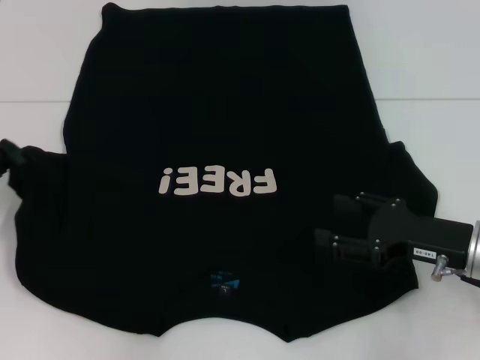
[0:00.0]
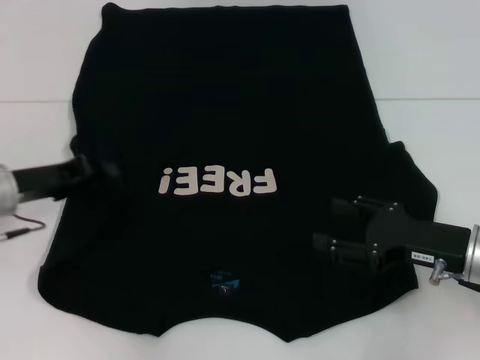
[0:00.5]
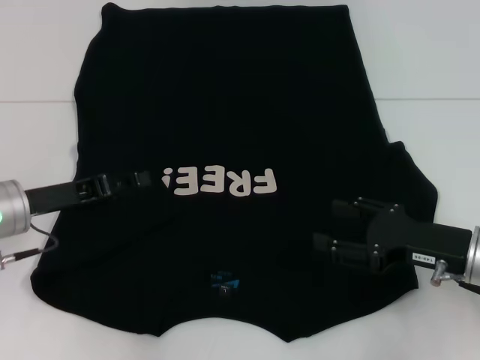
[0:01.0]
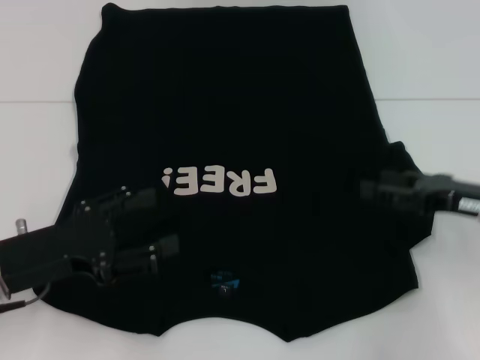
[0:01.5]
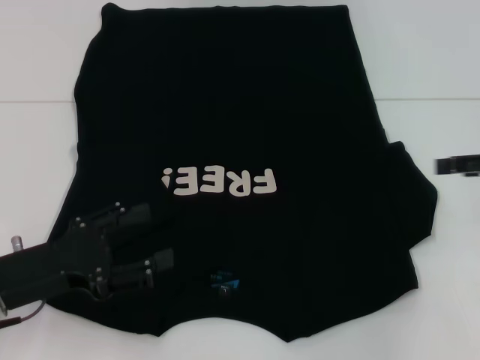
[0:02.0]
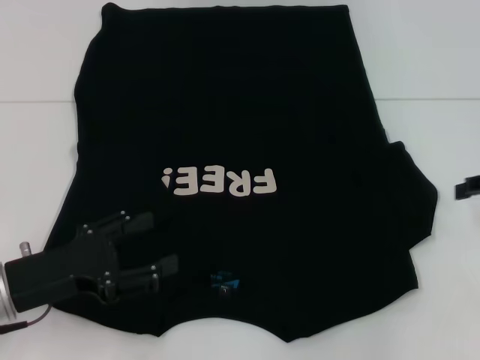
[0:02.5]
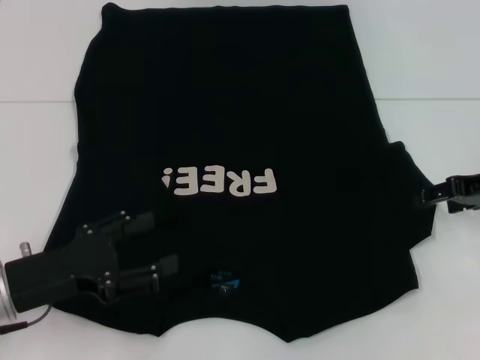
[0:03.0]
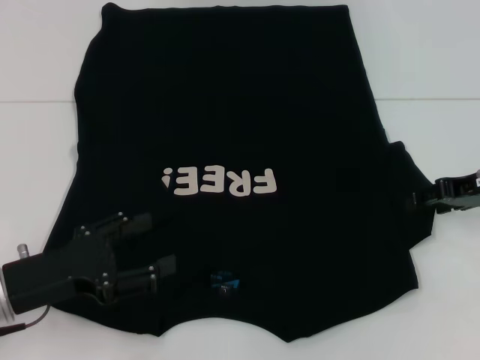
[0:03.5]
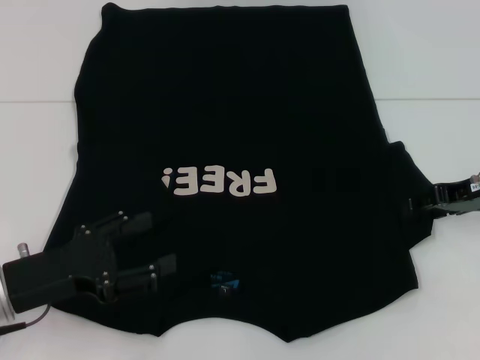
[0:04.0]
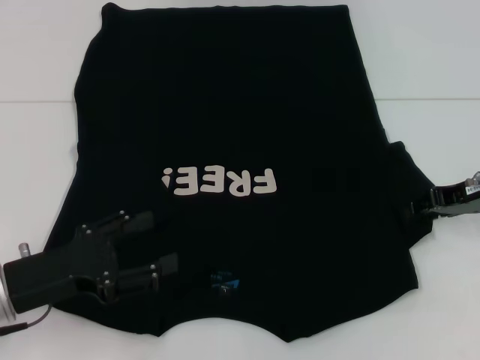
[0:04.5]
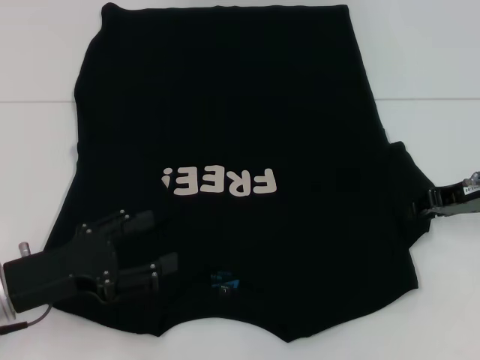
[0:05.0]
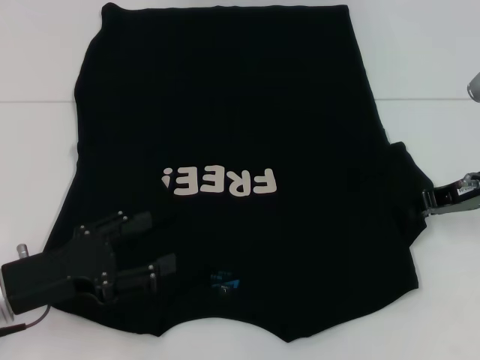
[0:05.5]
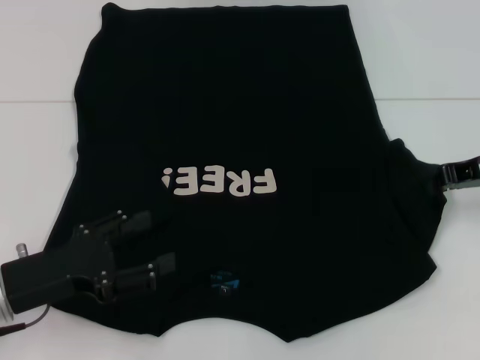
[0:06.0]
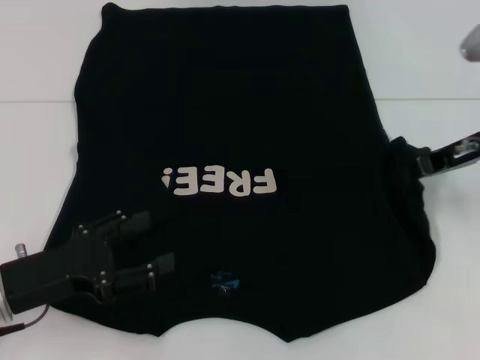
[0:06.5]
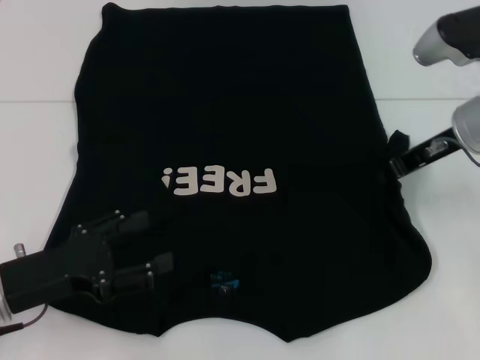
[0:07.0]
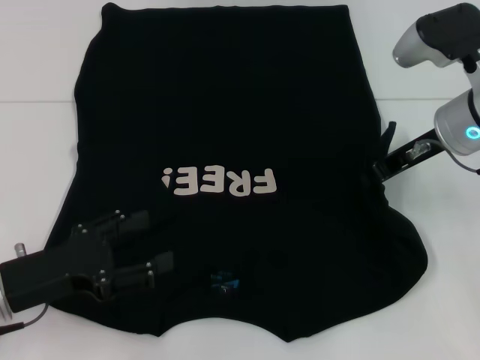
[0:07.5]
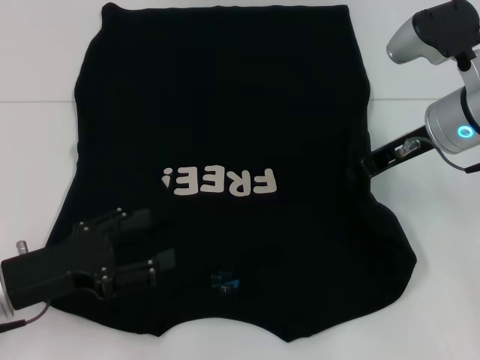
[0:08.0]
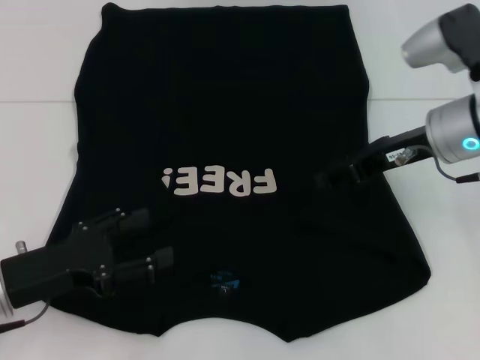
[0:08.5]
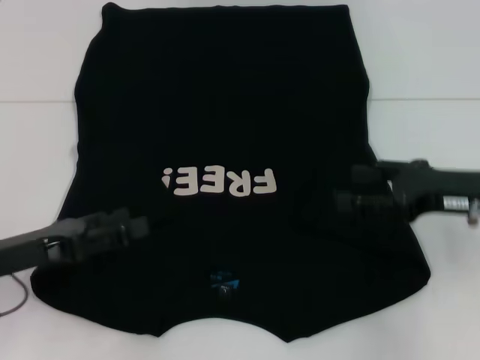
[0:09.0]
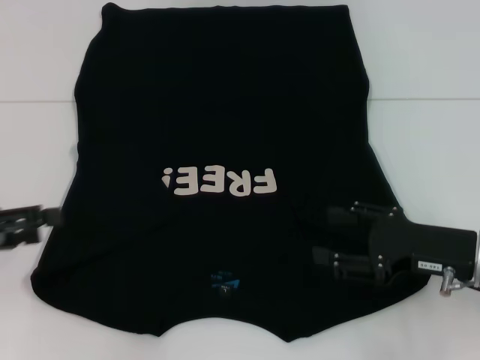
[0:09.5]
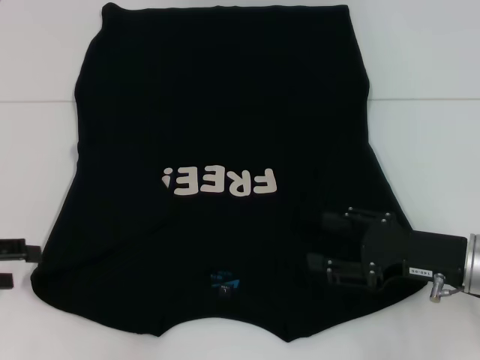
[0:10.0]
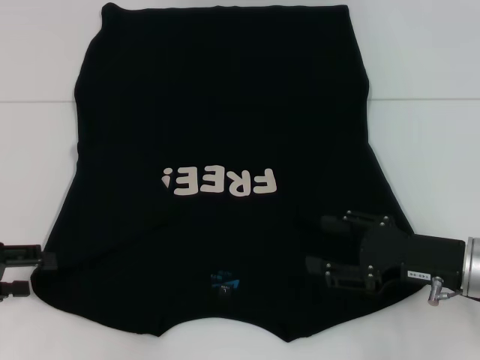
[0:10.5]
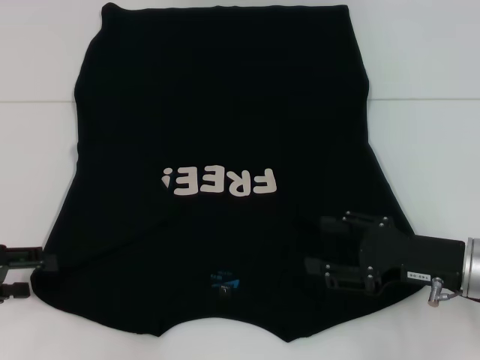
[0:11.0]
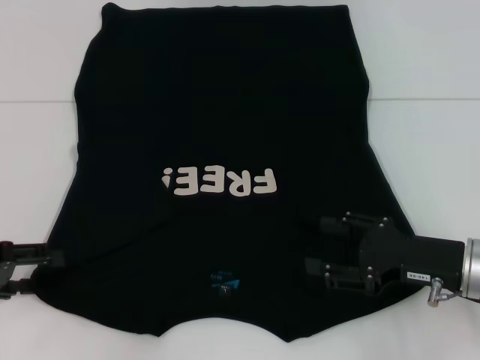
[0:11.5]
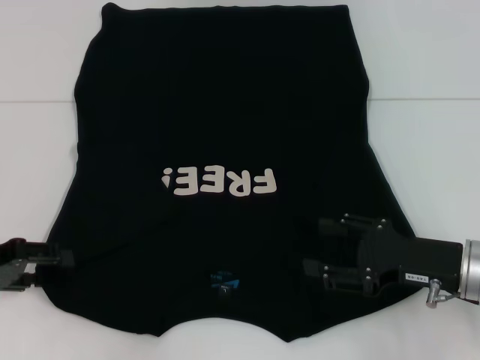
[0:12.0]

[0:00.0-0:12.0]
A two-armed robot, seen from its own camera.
Step, 0:01.5 to 0:08.0: Fold the bottom right sleeve with your right hand.
0:00.0 to 0:02.0: The left gripper shifts about 15 cm to the right and backward, and opens; the right gripper heads upward and to the right, covering roughly 15 cm.
0:02.0 to 0:04.0: The right gripper shifts roughly 5 cm to the left.
0:04.0 to 0:06.0: The right gripper closes.
0:06.0 to 0:08.0: The right gripper is displaced to the left by roughly 10 cm.
0:08.0 to 0:10.0: The left gripper heads to the left, covering approximately 10 cm; the right gripper travels backward and downward by some 15 cm, and opens up.
0:10.0 to 0:12.0: The grippers make only small movements.

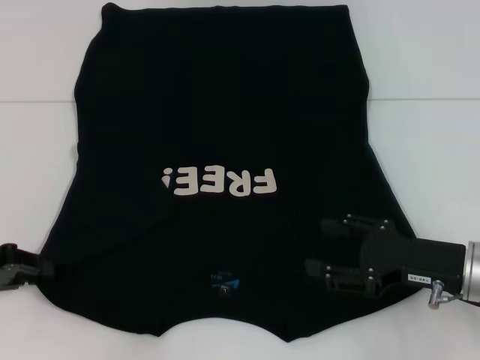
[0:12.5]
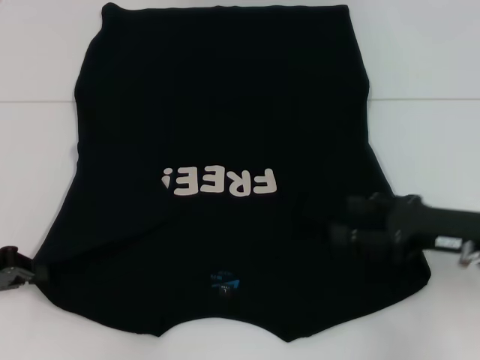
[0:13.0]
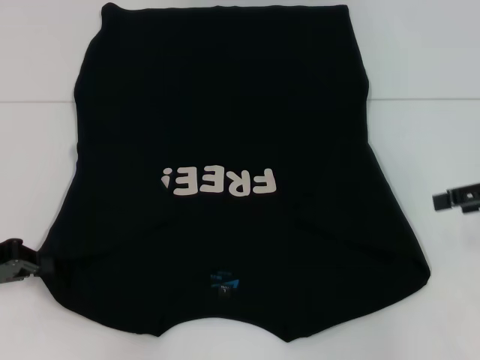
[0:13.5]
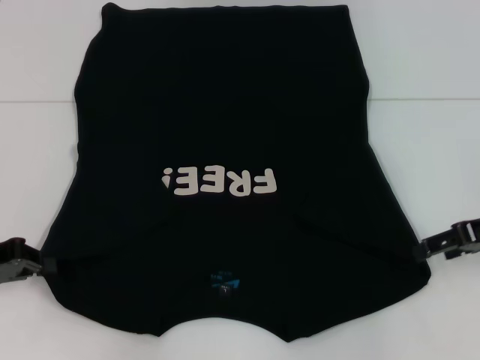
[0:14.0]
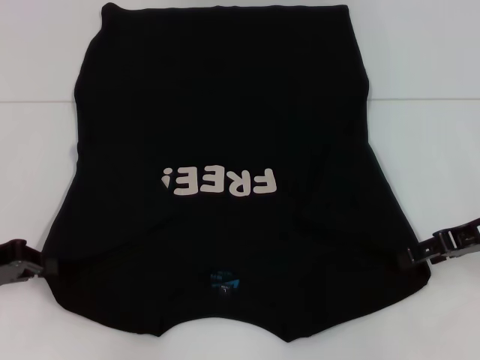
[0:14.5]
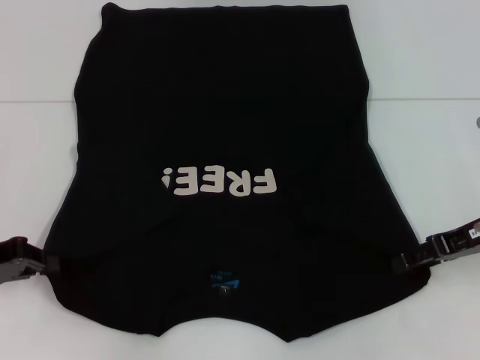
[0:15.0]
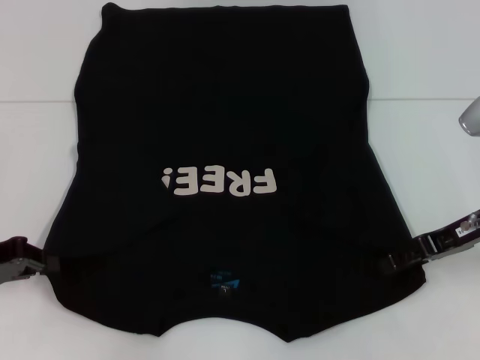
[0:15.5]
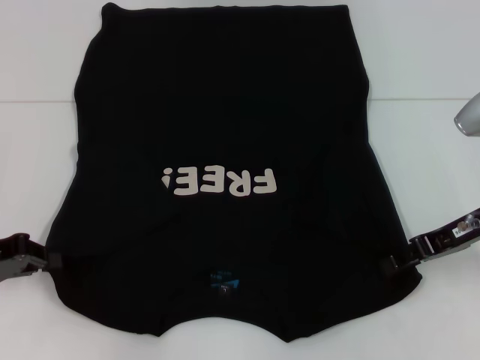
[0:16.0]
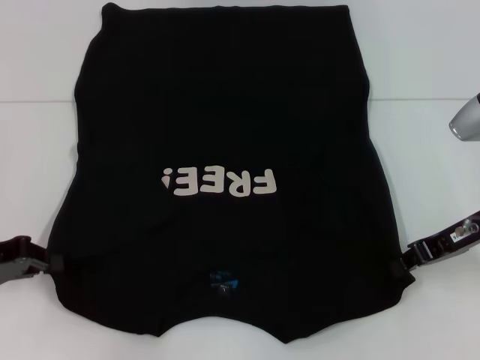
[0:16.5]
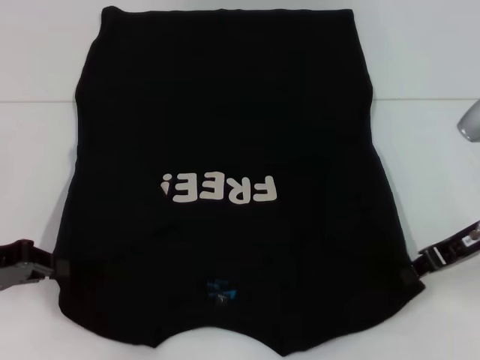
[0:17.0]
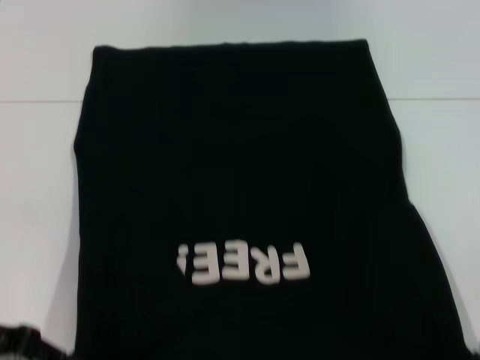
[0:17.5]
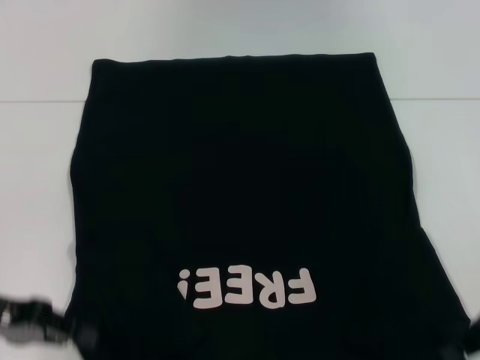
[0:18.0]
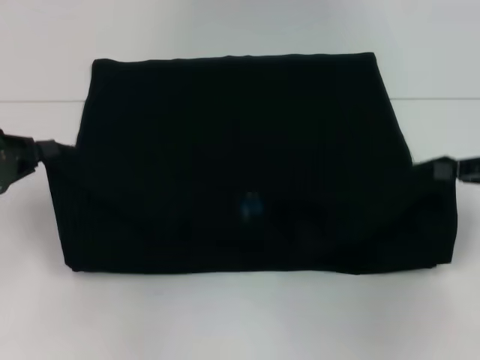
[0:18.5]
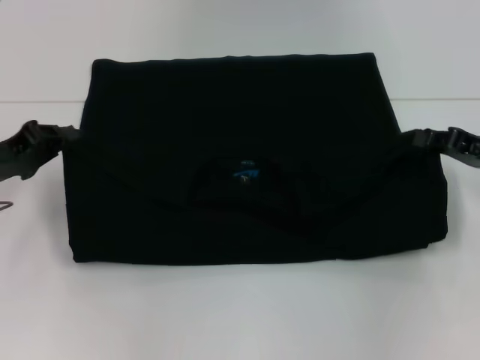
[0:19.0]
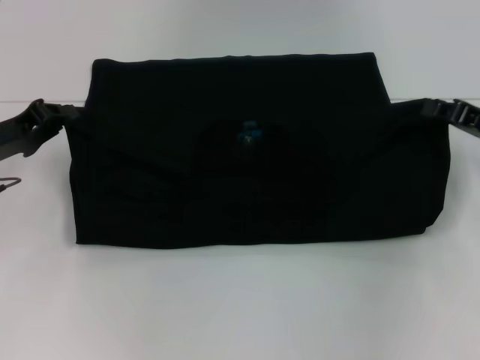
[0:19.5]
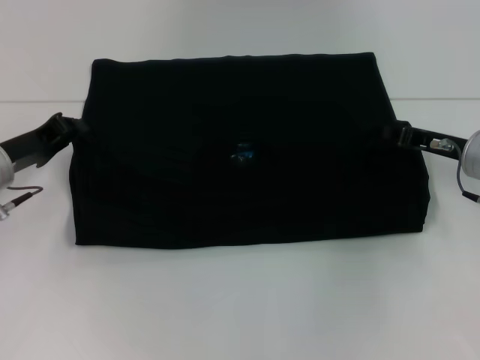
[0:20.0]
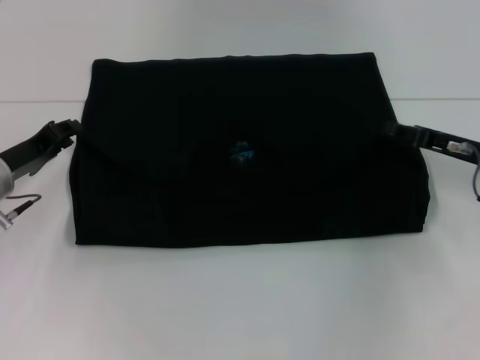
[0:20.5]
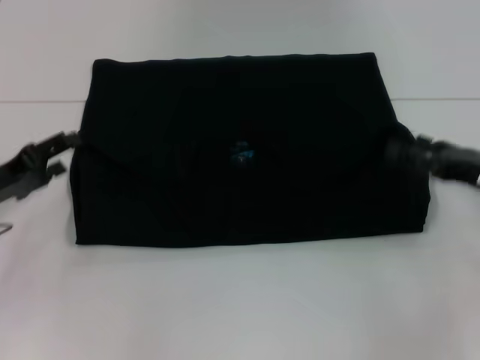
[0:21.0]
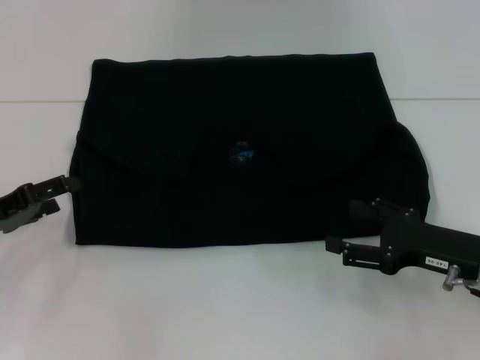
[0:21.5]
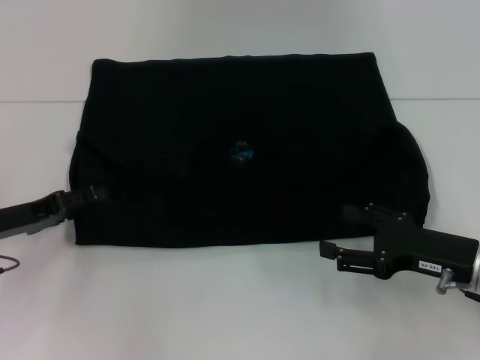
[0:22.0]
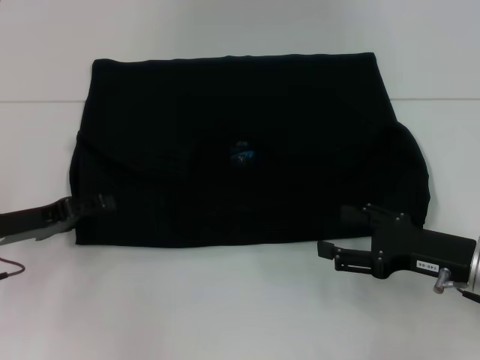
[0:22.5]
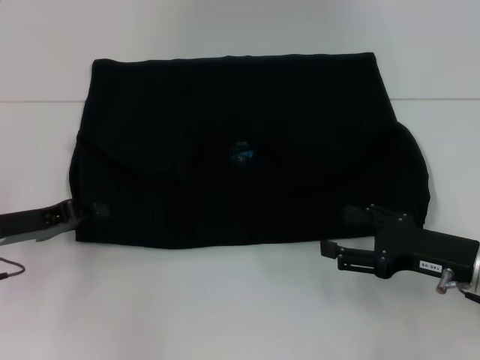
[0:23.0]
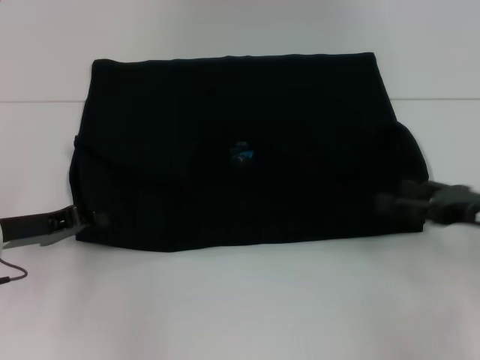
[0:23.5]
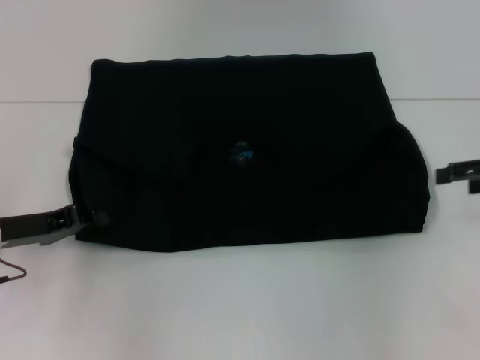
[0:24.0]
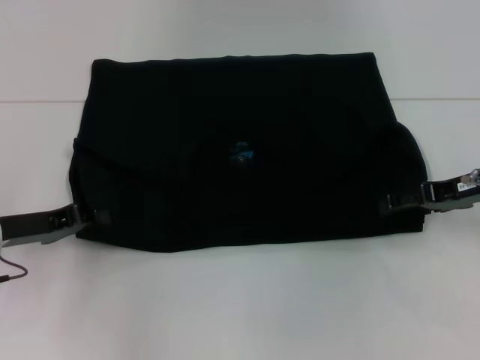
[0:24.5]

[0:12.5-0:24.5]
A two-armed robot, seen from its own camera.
Step, 0:13.5 to 0:17.0: Grab the bottom right corner with your right hand.
Step, 0:17.5 to 0:20.5: Fold the clothes with your left hand.
Step, 0:17.5 to 0:20.5: Fold the clothes with your right hand.
0:12.5 to 0:14.5: The left gripper closes up. Meanwhile the right gripper goes approximately 10 cm forward and upward.
0:14.5 to 0:16.5: The right gripper closes its fingers.
0:16.5 to 0:18.5: The right gripper travels to the right by roughly 10 cm.
0:18.5 to 0:20.5: The left gripper travels downward, to the right and forward by some 10 cm. The right gripper goes some 10 cm to the left and downward, and opens up.
0:20.5 to 0:22.5: The right gripper shifts approximately 10 cm backward, and opens up. The left gripper heads backward, covering some 5 cm, and opens up.
0:22.5 to 0:24.5: The left gripper closes its fingers. The right gripper is displaced forward and upward by approximately 10 cm.

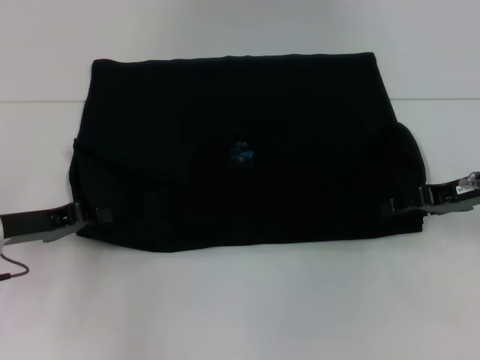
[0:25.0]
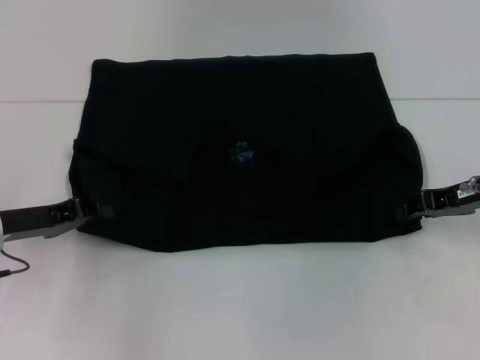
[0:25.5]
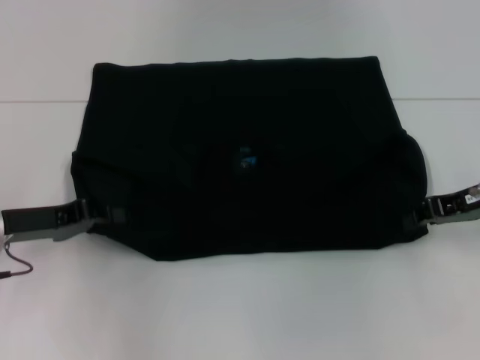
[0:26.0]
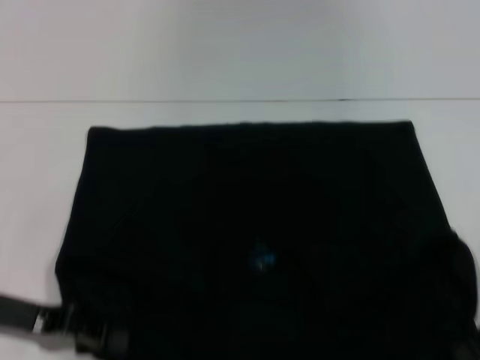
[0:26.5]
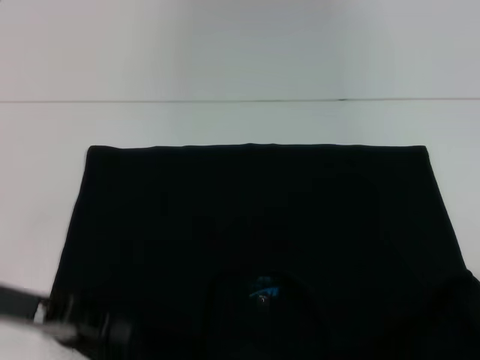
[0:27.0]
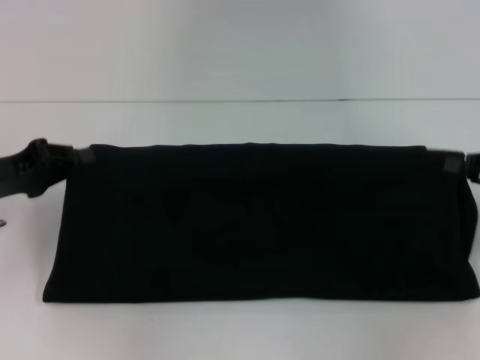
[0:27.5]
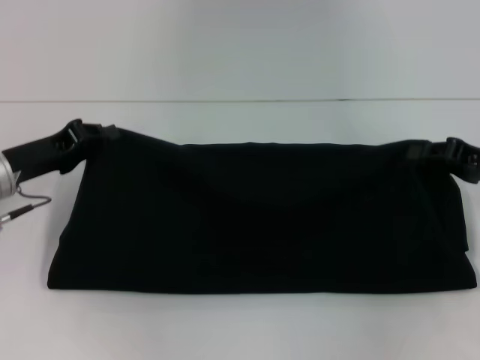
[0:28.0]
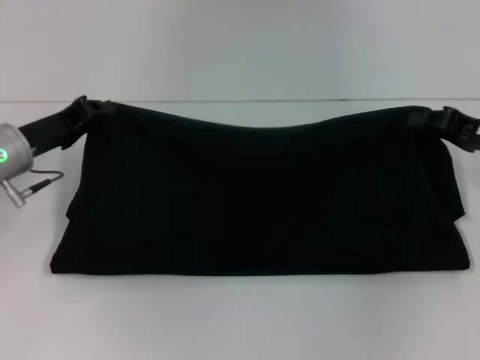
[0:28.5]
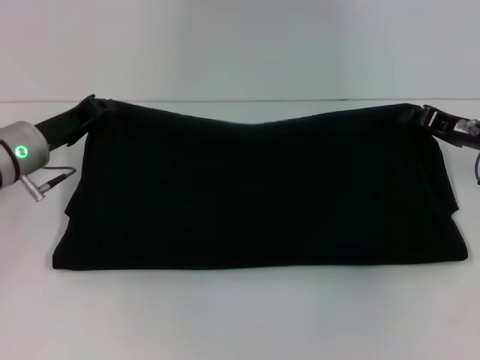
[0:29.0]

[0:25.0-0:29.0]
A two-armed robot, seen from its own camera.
0:25.0 to 0:27.0: The right gripper travels backward by some 10 cm, and closes its fingers, while the left gripper is displaced backward by about 5 cm.
0:27.0 to 0:29.0: Both grippers travel together forward, about 10 cm.
